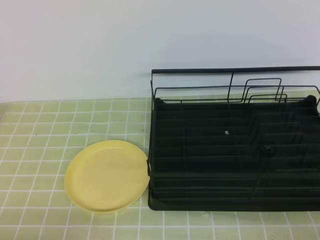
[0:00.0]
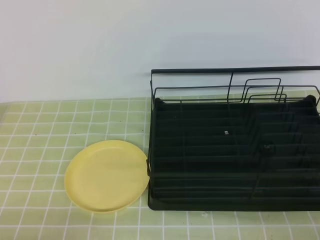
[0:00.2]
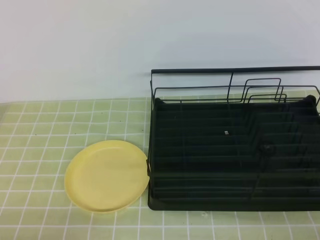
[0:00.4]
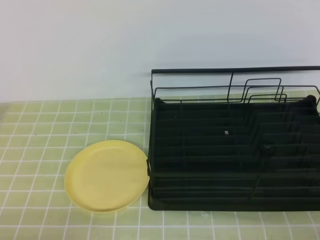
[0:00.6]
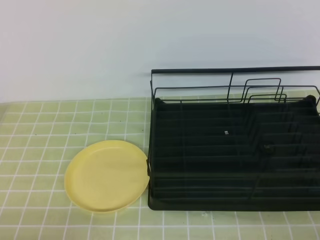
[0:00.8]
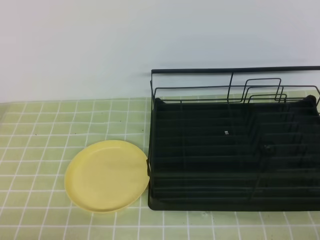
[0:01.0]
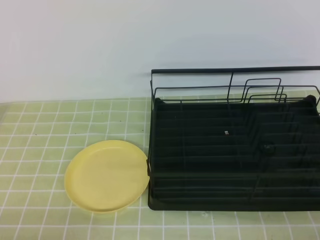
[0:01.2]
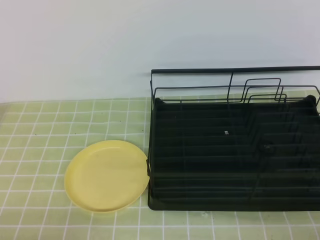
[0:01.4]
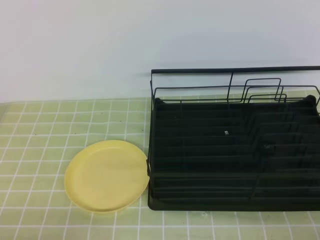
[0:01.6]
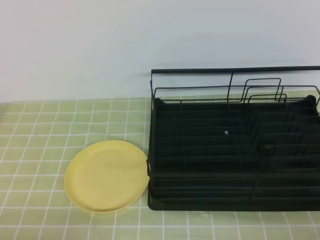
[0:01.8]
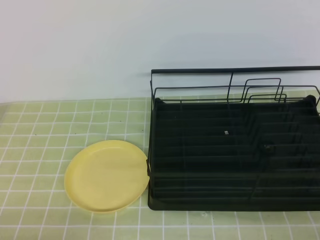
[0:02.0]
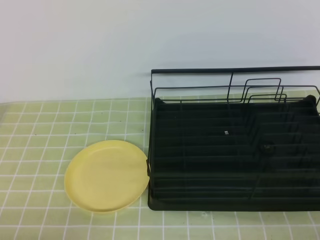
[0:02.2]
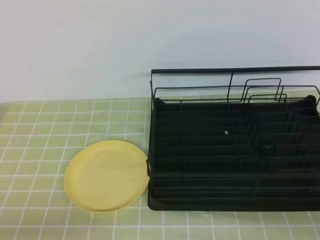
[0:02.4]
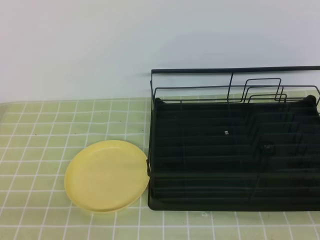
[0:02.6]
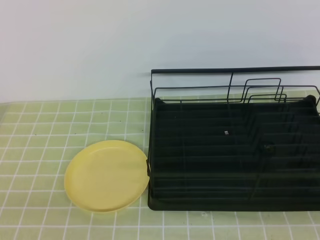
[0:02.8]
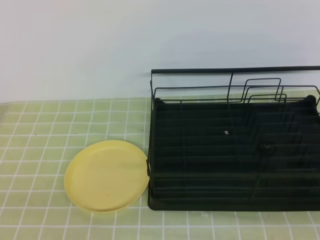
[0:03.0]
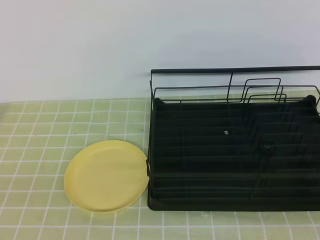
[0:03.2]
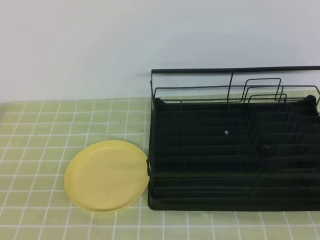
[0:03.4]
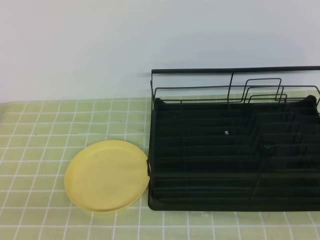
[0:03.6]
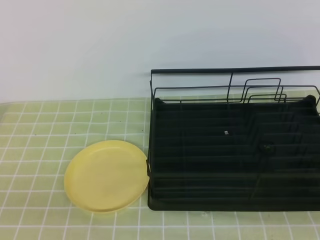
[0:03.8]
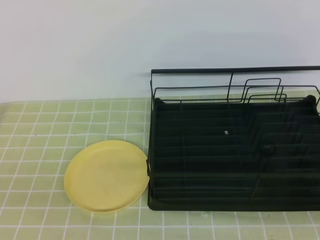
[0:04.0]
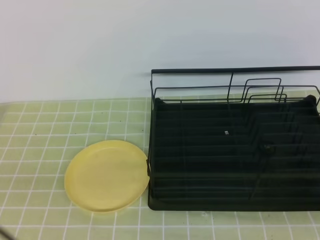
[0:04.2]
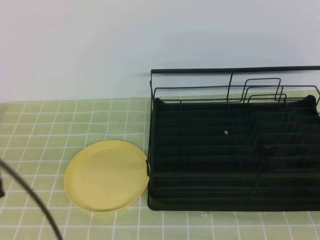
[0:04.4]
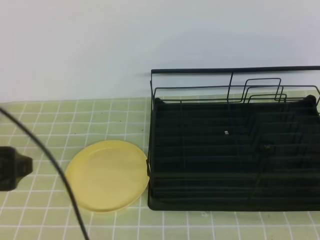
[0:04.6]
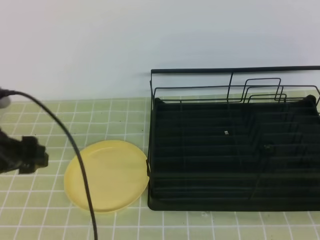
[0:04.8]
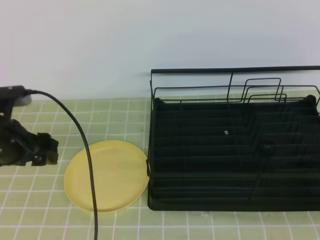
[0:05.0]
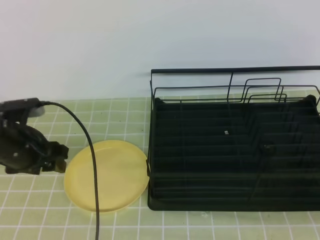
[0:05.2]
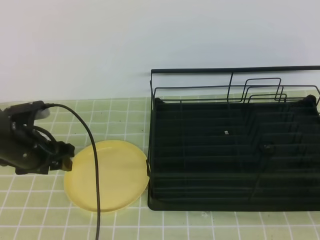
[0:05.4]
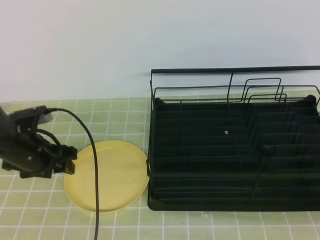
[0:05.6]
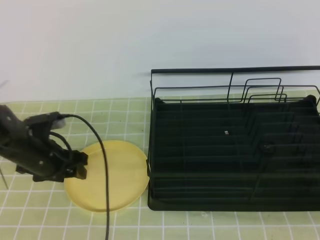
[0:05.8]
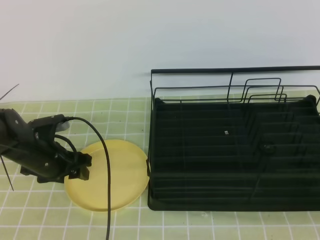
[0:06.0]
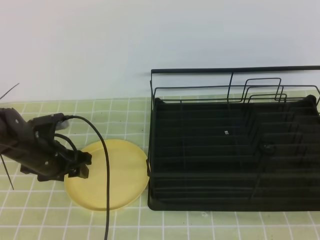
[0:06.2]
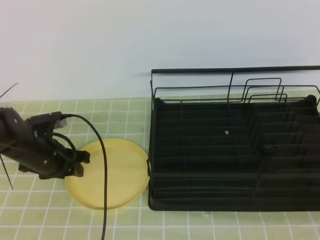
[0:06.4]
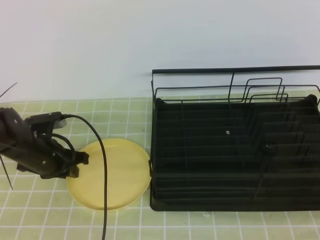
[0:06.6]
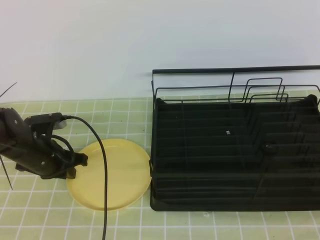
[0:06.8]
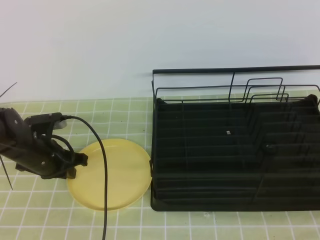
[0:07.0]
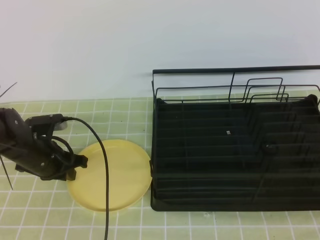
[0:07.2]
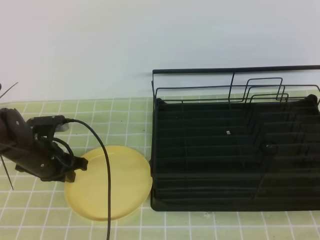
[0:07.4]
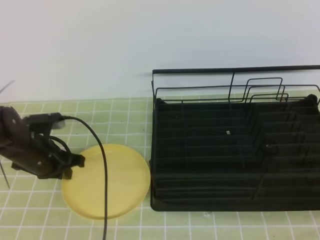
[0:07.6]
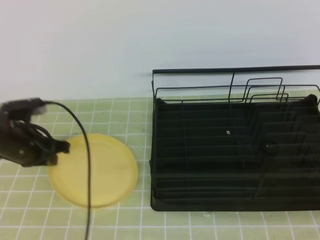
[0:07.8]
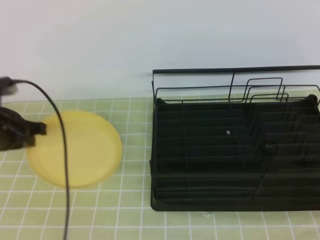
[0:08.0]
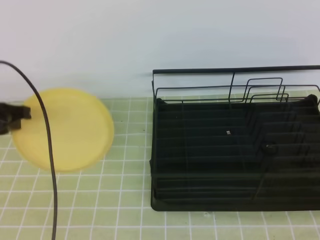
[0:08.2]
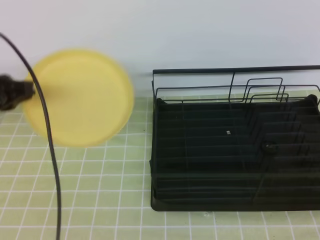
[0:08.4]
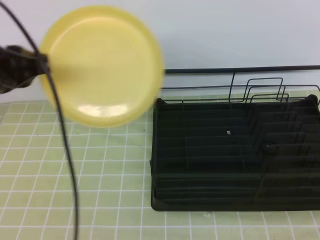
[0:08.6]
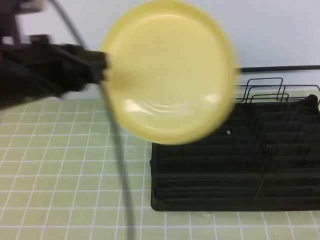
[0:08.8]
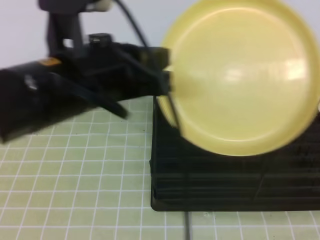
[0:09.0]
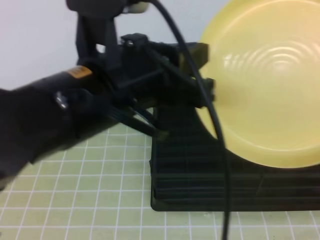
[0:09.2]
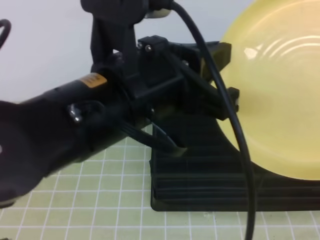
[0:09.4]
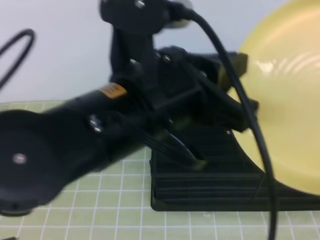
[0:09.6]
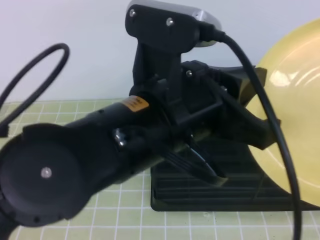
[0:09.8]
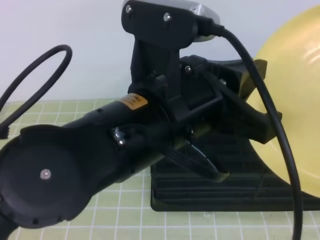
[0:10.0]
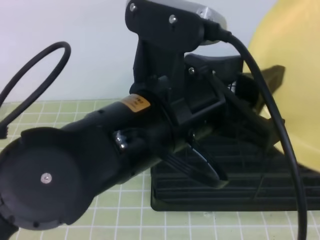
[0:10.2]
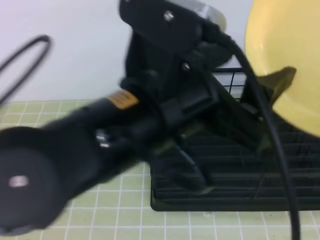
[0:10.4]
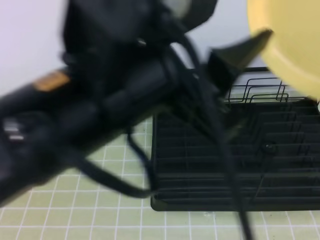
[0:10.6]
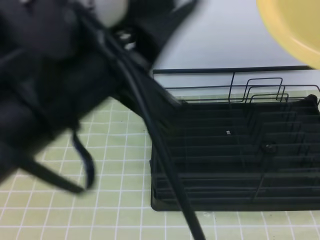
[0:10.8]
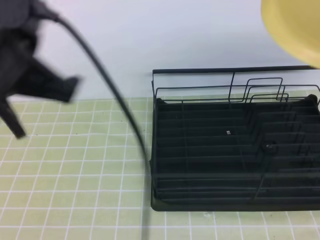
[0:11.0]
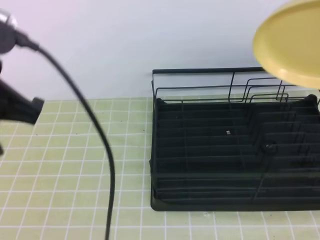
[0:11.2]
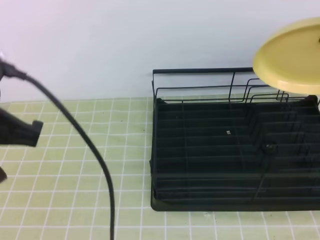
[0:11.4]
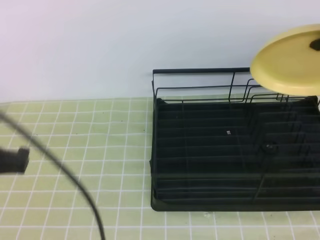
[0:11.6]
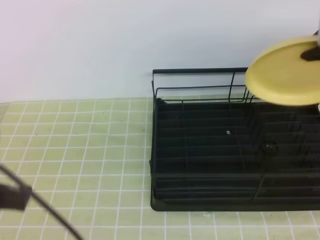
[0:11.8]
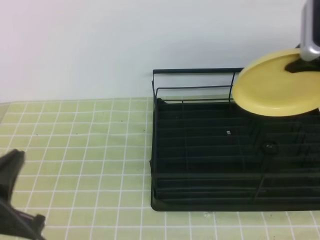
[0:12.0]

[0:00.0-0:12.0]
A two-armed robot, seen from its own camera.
Step, 0:00.0 to 0:06.2: Left grab the yellow plate.
0:00.0 to 0:01.6: Both grippers stay about where they are.
0:03.0 to 0:04.4: The left gripper travels forward and upward by approximately 10 cm, and opens.
0:04.4 to 0:06.0: The left gripper travels forward and downward by roughly 25 cm.
0:06.0 to 0:07.6: The left gripper closes its fingers.
0:07.6 to 0:09.0: The left gripper heads upward, backward and to the right, covering some 30 cm. Meanwhile the right gripper shifts approximately 10 cm to the left and upward, and opens up.
0:09.0 to 0:10.4: The left gripper travels backward and to the right by roughly 10 cm, and opens, while the right gripper travels upward and forward by roughly 10 cm, and closes.
0:10.4 to 0:12.0: The right gripper shifts about 25 cm forward. The left gripper moves to the left and downward, roughly 20 cm, and closes up.

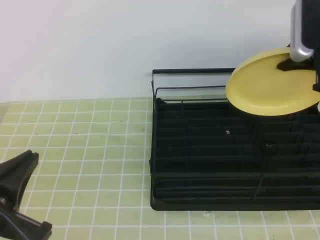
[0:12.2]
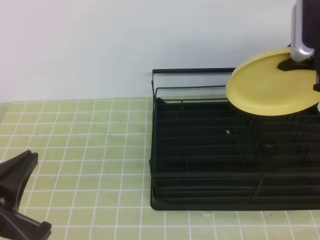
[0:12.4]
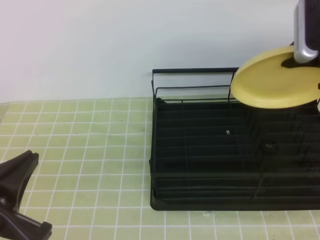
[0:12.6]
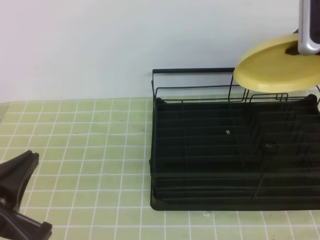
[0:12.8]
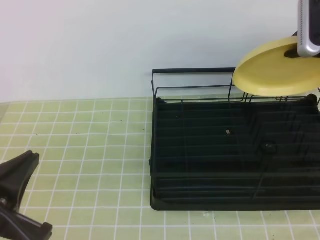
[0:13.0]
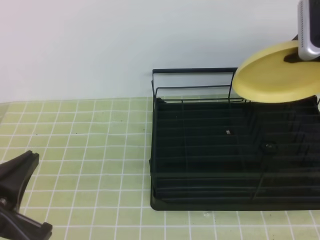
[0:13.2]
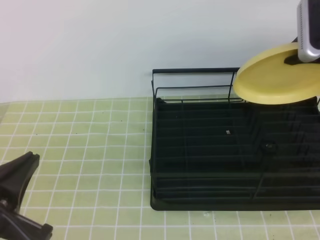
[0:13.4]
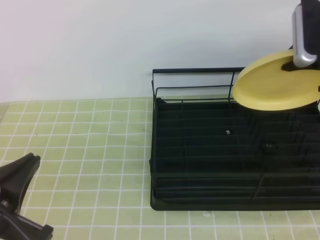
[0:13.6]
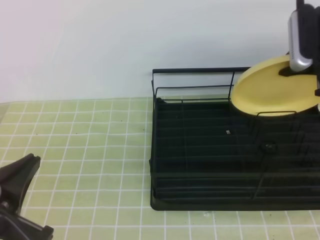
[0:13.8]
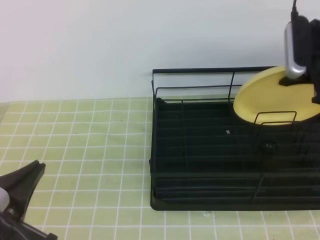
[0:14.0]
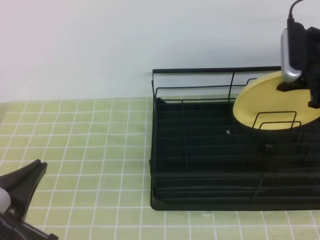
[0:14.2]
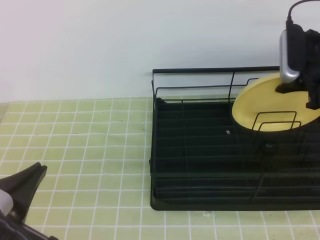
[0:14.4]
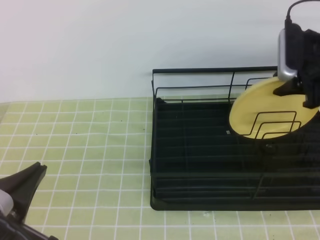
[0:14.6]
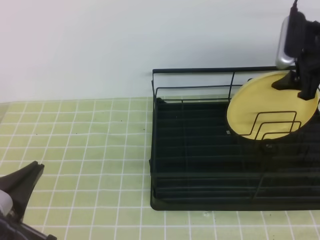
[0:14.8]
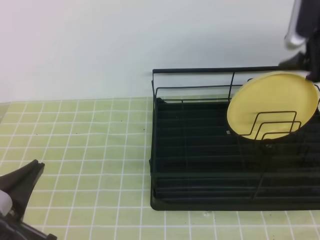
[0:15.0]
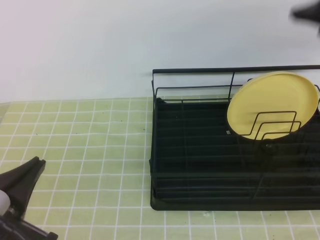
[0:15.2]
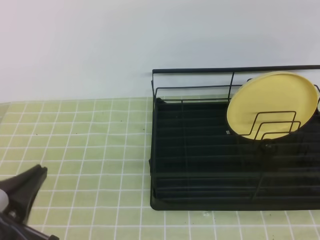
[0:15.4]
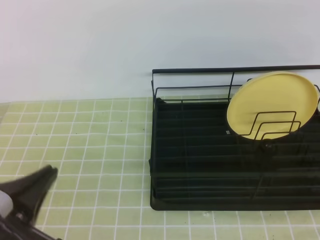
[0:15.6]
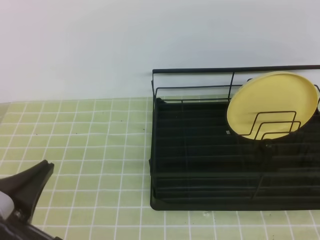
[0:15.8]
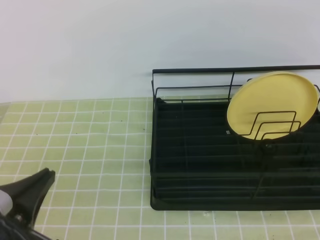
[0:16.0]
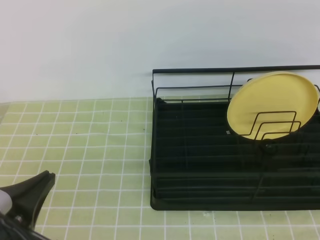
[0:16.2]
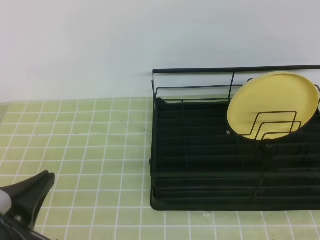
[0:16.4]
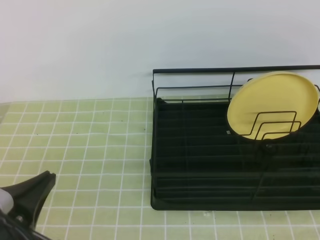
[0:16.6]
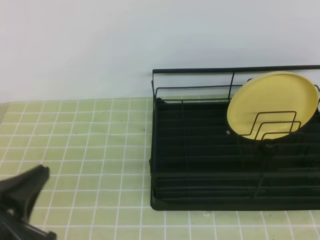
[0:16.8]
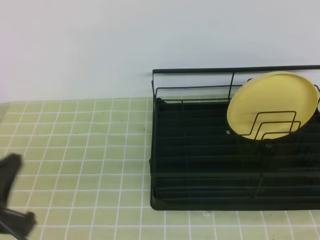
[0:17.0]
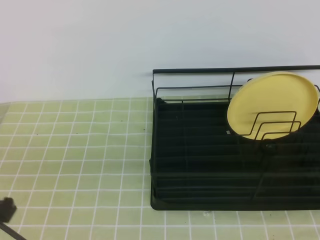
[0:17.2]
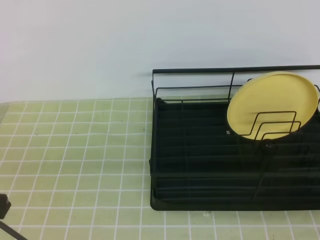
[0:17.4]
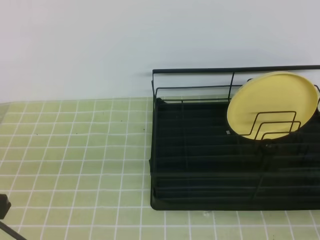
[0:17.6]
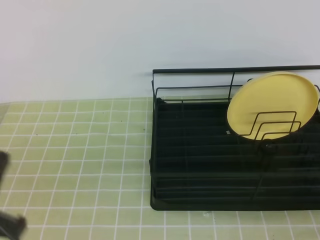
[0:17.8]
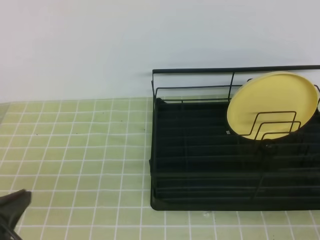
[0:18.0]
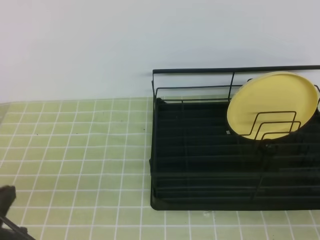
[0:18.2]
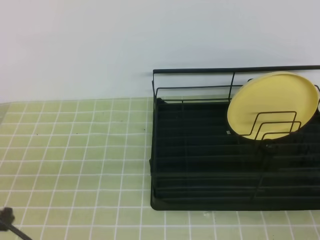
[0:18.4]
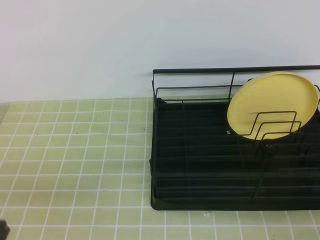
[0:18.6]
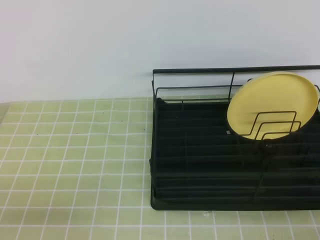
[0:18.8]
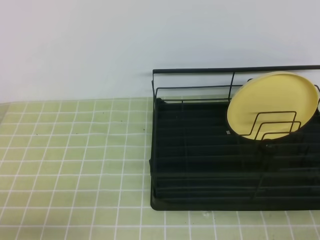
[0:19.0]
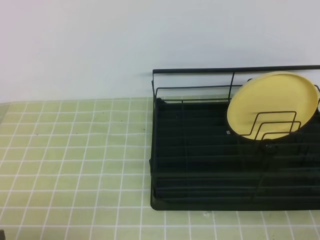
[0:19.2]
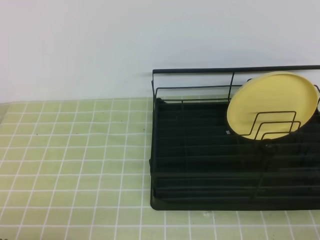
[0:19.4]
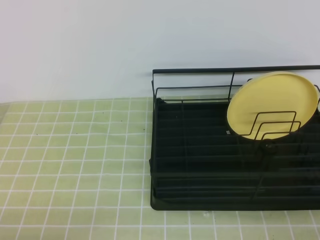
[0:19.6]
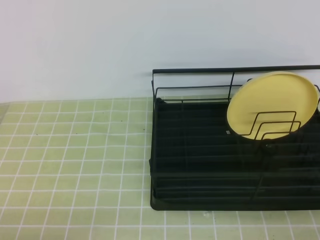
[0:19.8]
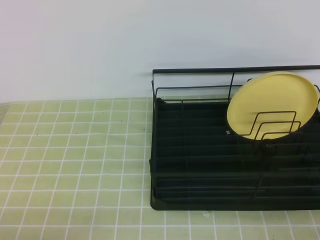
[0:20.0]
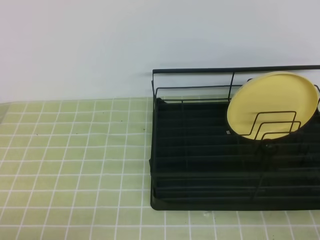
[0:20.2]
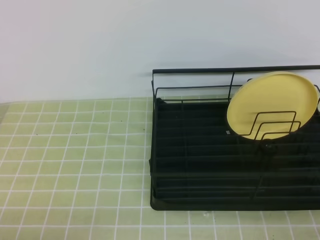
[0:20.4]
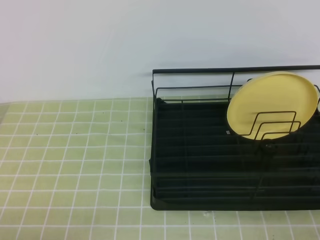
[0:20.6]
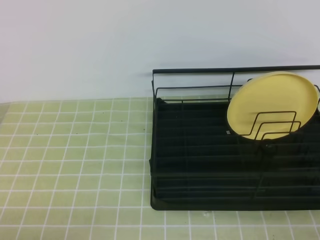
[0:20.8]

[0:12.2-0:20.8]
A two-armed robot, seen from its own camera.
0:12.2 to 0:13.6: There are only small adjustments of the grippers.
0:13.6 to 0:15.0: The right gripper opens its fingers.
0:15.0 to 0:16.6: The right gripper shifts approximately 25 cm backward and upward, and closes up.
0:16.6 to 0:18.0: The right gripper travels downward and backward by approximately 35 cm.
0:18.0 to 0:19.4: The left gripper heads downward and backward, covering approximately 10 cm.
0:19.4 to 0:20.8: Neither gripper changes place.
